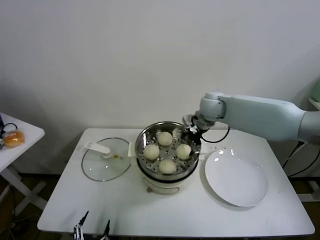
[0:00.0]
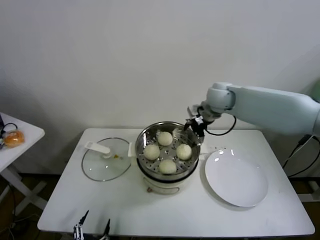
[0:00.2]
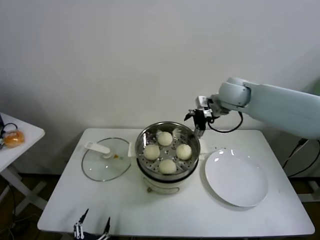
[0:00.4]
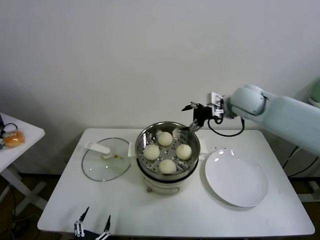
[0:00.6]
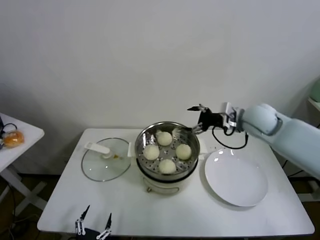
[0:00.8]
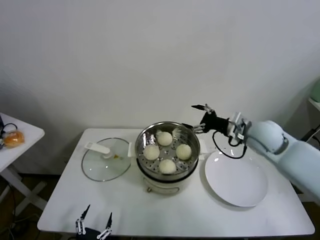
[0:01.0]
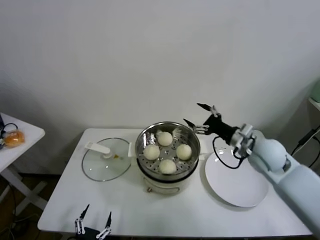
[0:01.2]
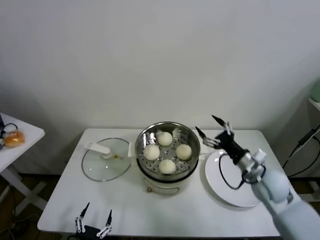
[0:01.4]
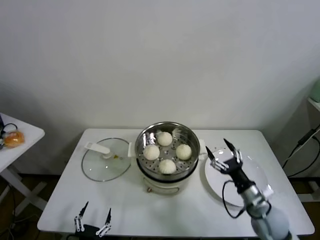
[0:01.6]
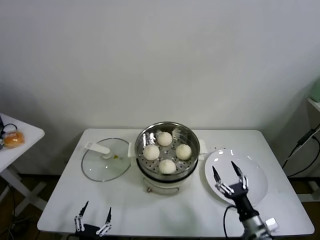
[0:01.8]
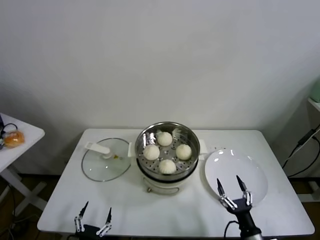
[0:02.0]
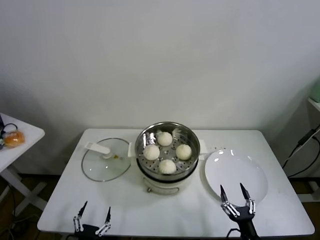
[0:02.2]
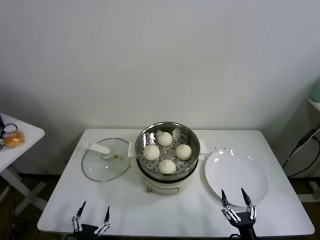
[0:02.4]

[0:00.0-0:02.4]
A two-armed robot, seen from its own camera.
Task of the whole recording: take steamed baozi put them in steamer.
0:00.0 to 0:01.2: The right gripper goes about 20 cm backward and to the right.
0:01.2 to 0:02.4: The right gripper heads backward and downward, covering about 40 cm.
